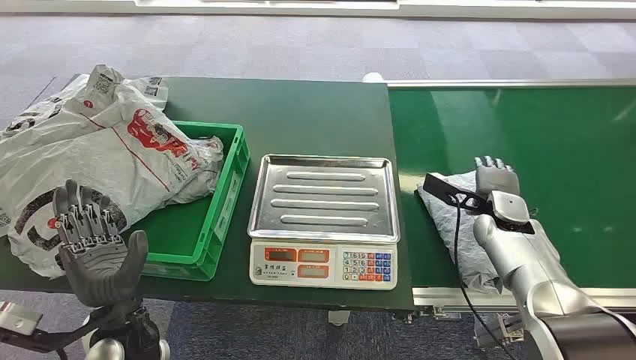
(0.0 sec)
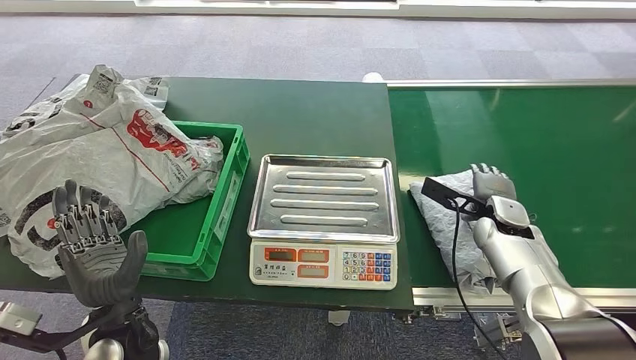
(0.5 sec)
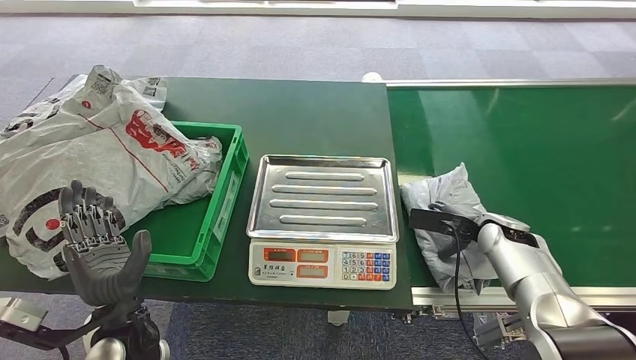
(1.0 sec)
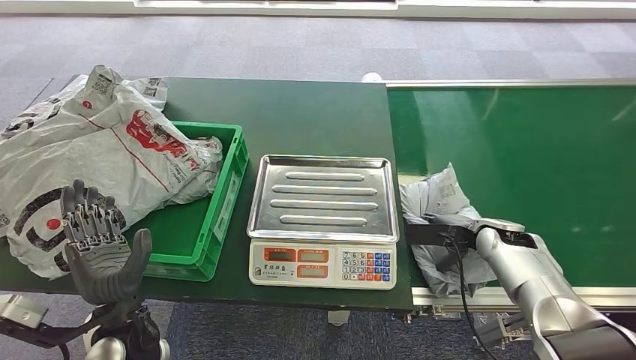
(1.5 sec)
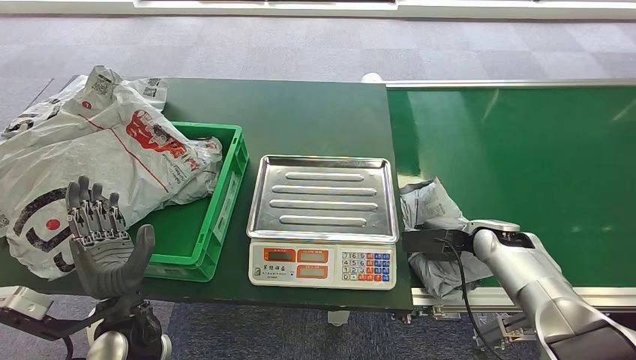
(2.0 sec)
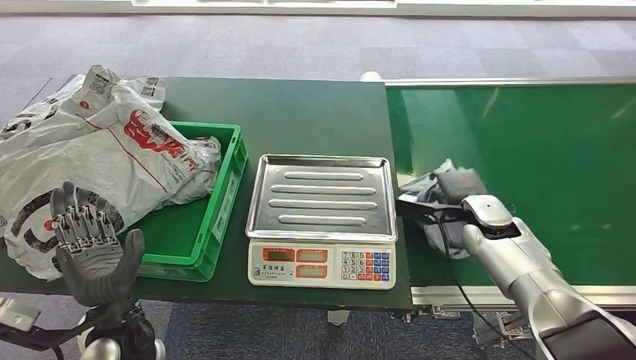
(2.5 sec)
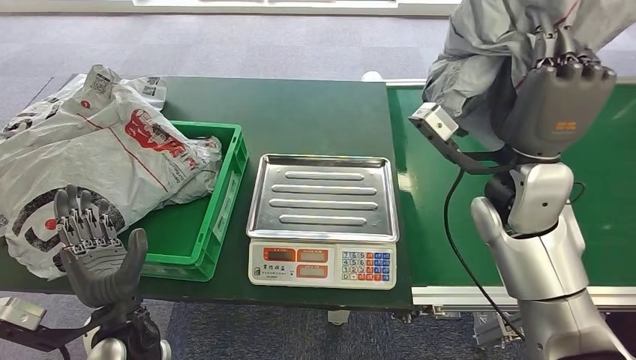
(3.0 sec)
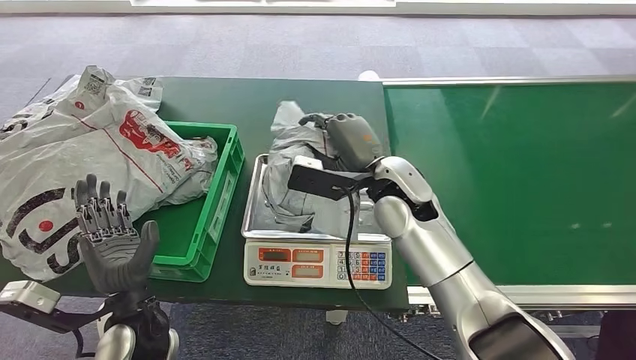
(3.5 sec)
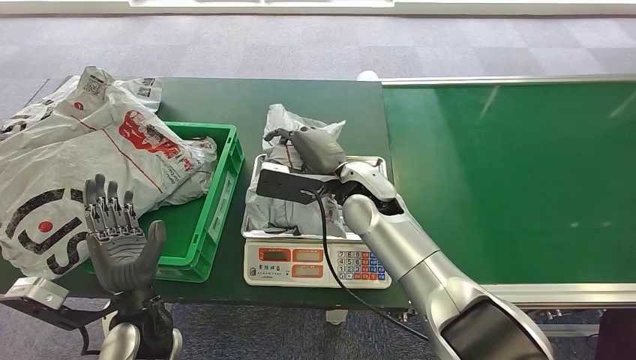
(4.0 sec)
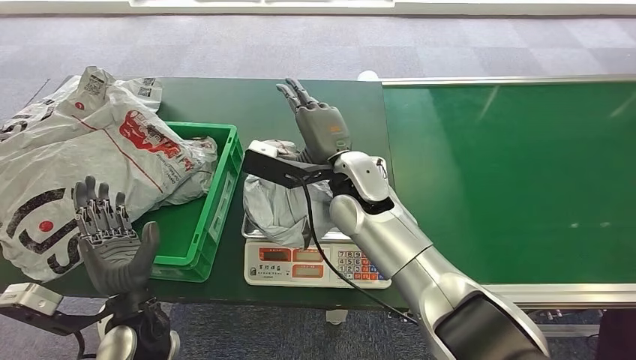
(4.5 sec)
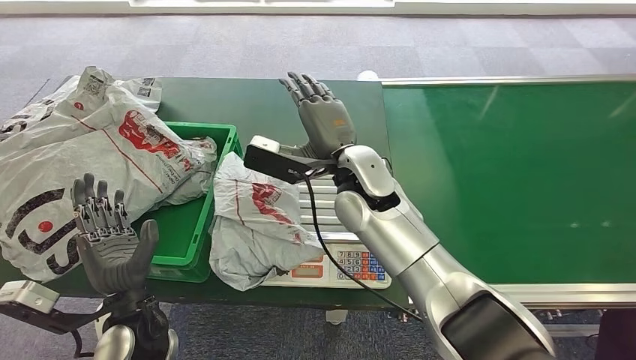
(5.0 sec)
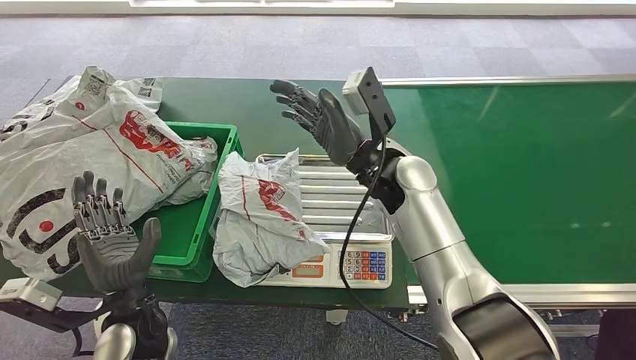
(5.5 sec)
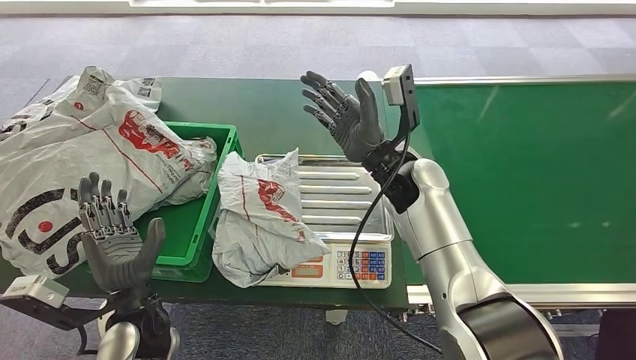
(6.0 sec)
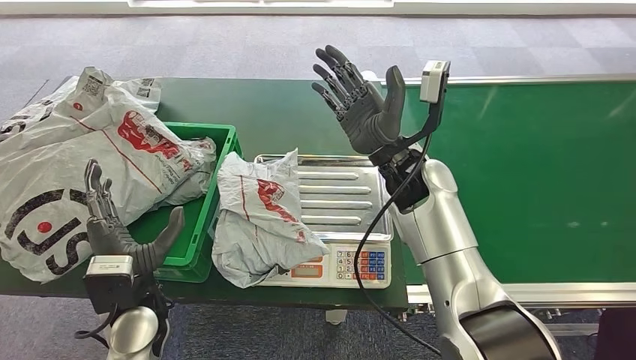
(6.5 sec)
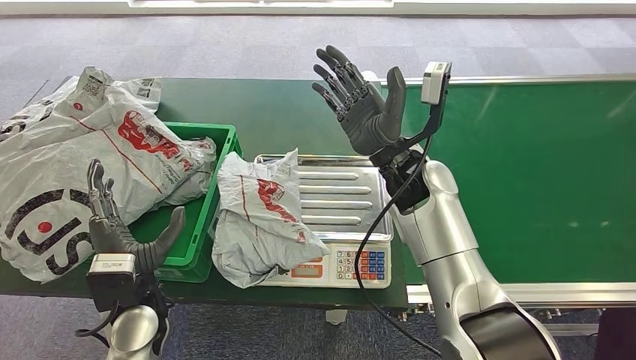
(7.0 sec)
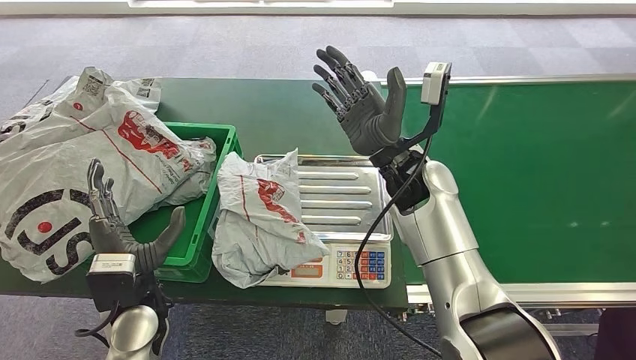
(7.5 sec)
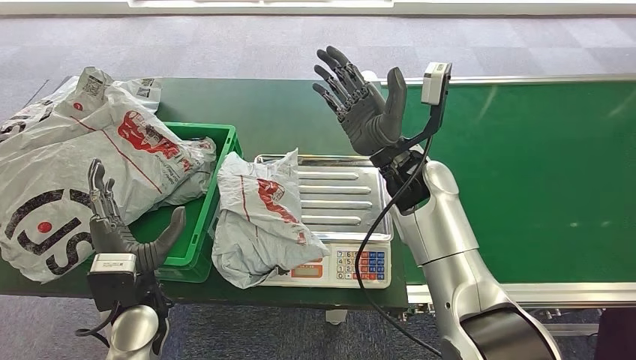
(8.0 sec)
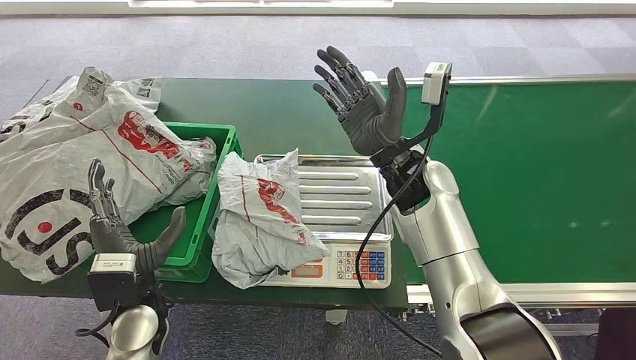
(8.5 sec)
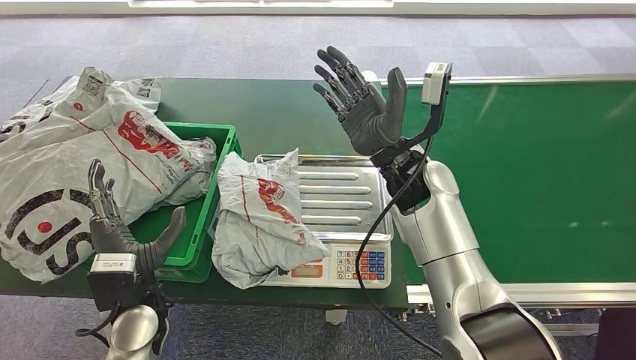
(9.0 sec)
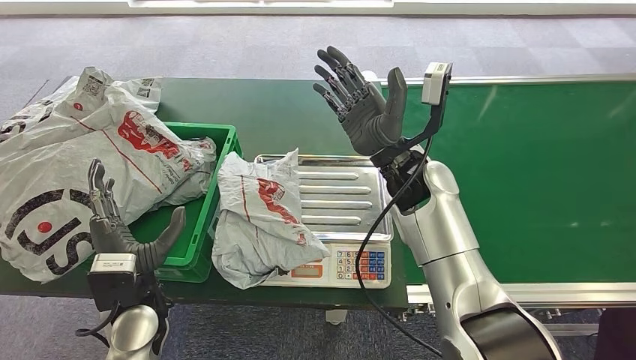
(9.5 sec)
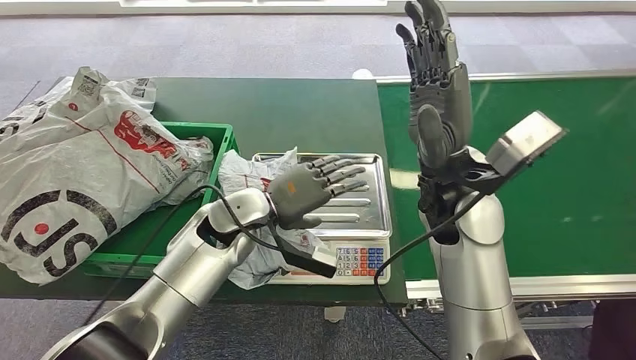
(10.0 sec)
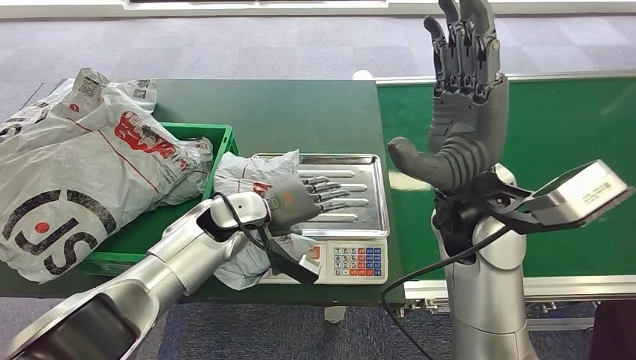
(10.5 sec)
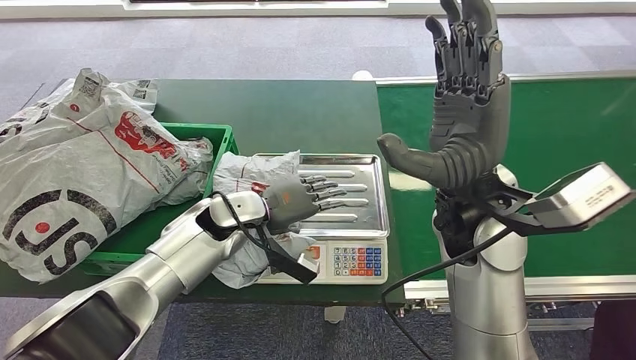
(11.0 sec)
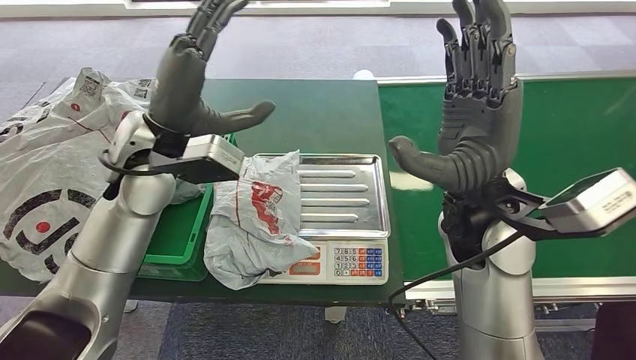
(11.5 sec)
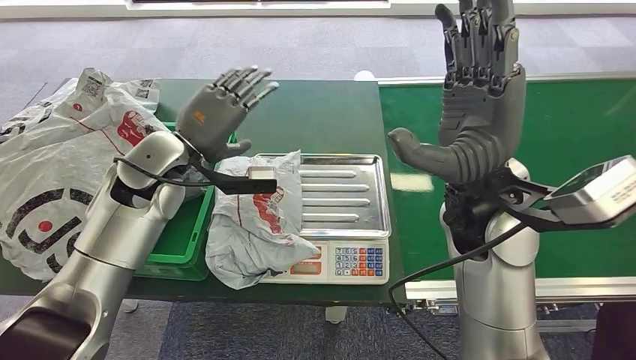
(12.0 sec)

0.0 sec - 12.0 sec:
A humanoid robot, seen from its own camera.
Step, 0.0 sec - 3.0 sec: Pick up the package from the conveyor belt.
Step, 3.5 sec - 5.5 sec: Place the package onto the inbound machine.

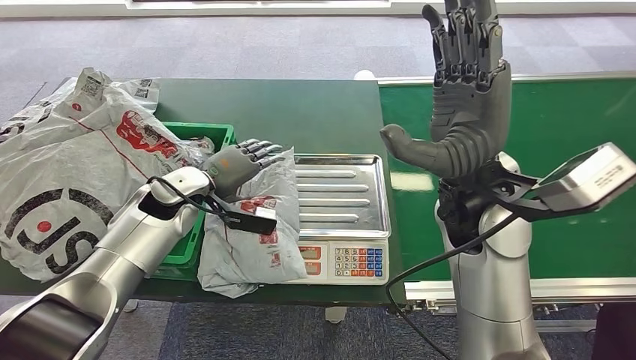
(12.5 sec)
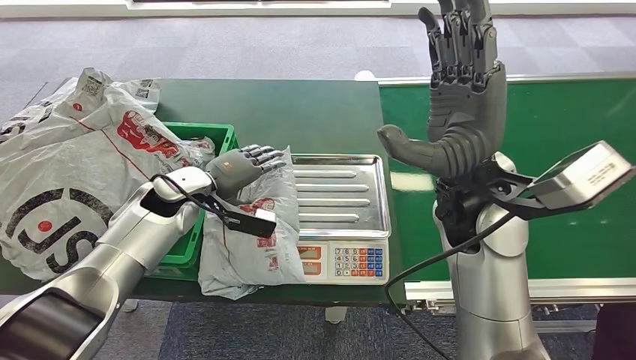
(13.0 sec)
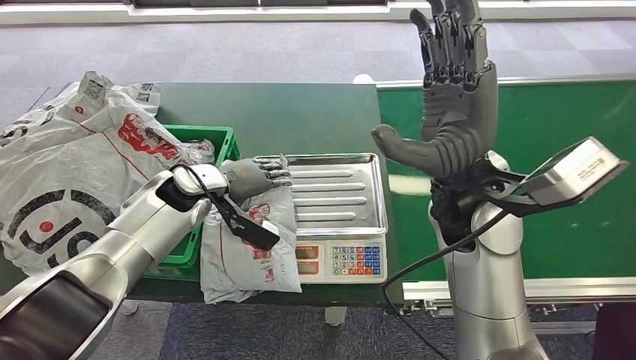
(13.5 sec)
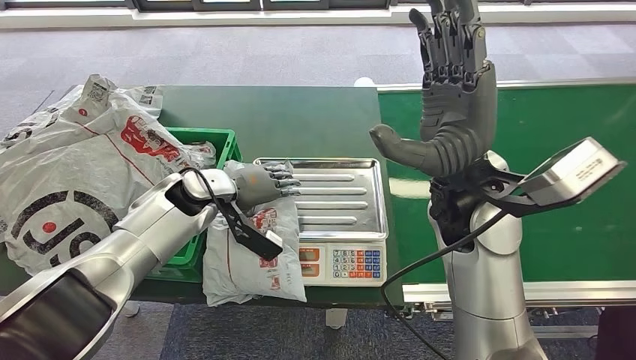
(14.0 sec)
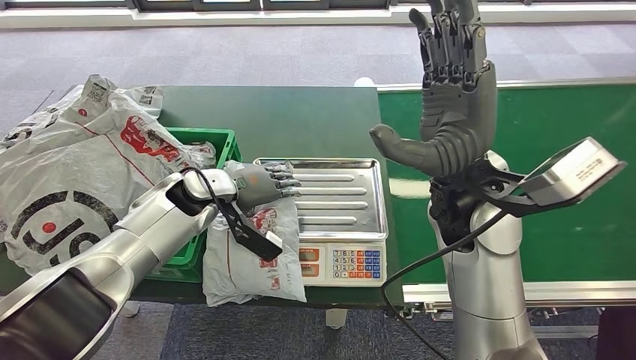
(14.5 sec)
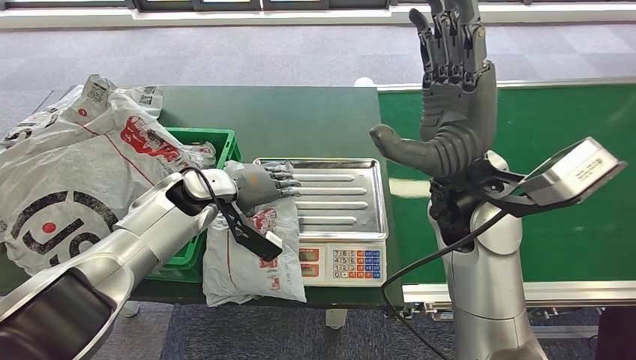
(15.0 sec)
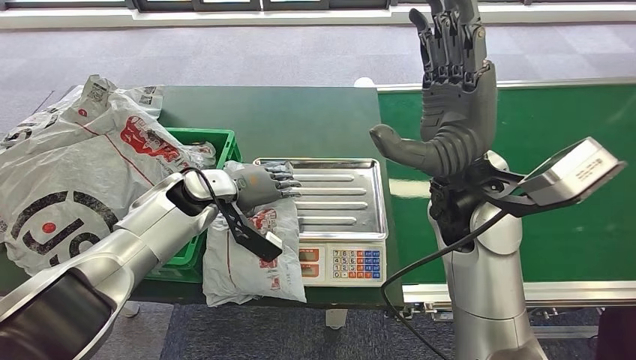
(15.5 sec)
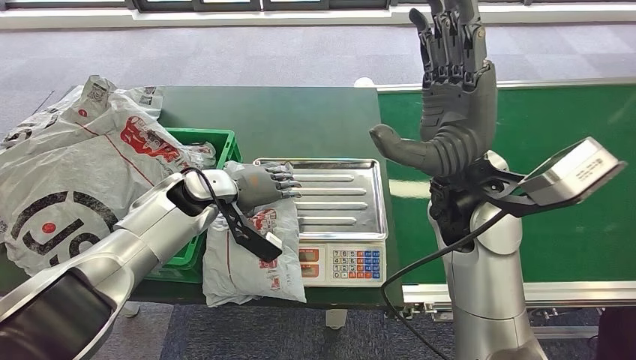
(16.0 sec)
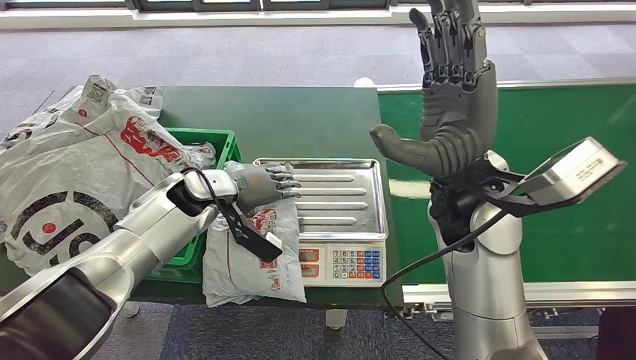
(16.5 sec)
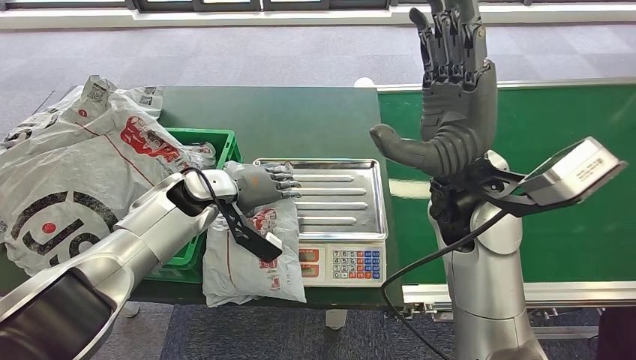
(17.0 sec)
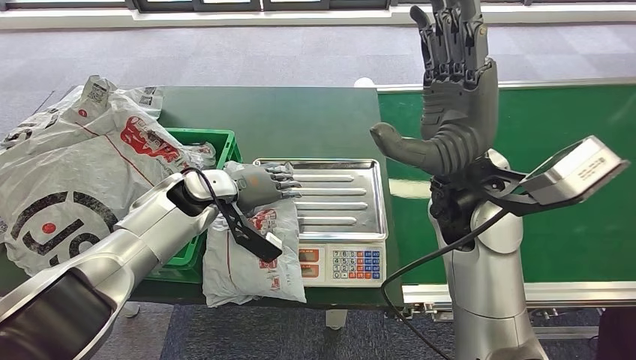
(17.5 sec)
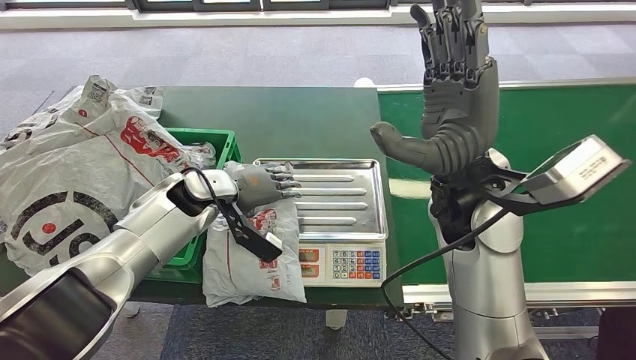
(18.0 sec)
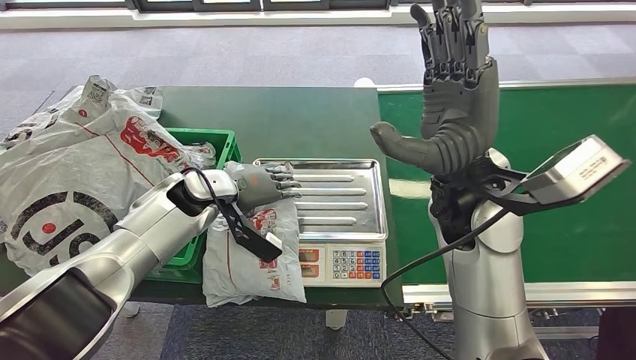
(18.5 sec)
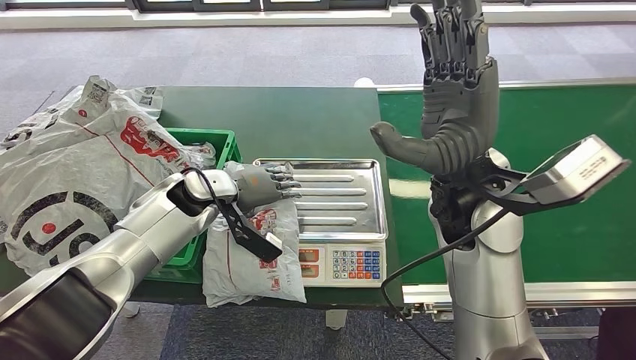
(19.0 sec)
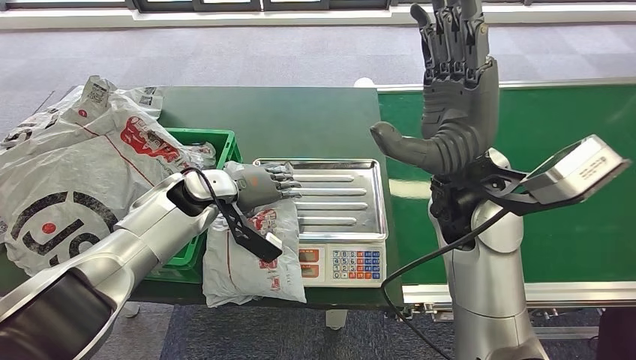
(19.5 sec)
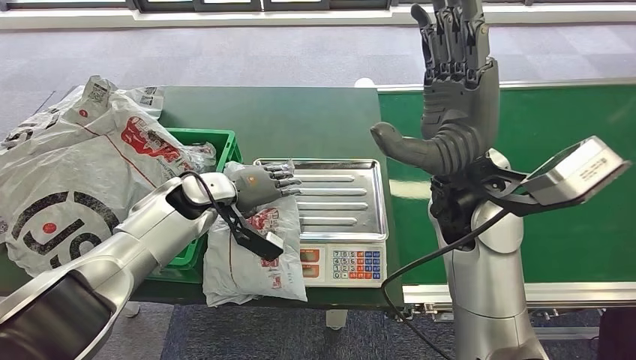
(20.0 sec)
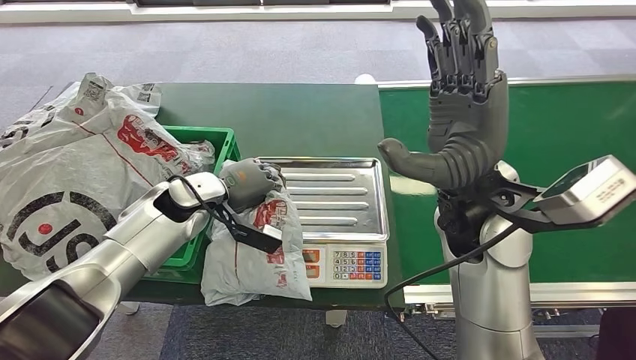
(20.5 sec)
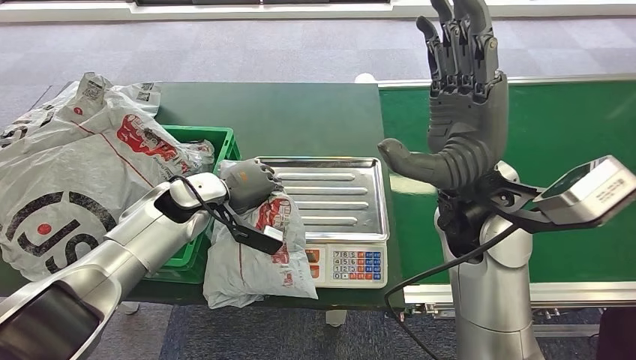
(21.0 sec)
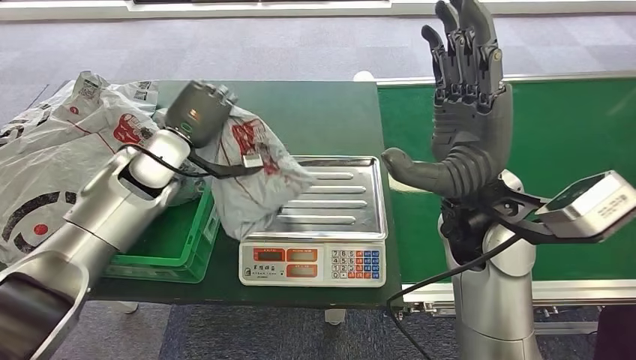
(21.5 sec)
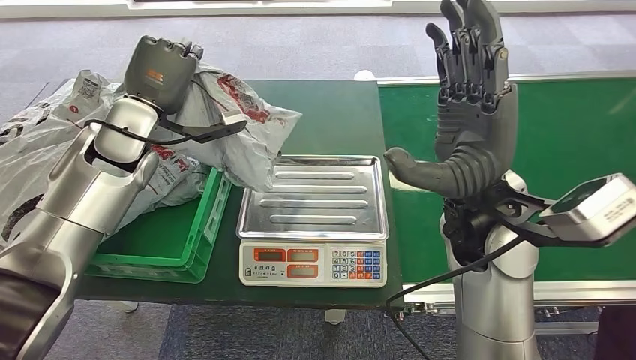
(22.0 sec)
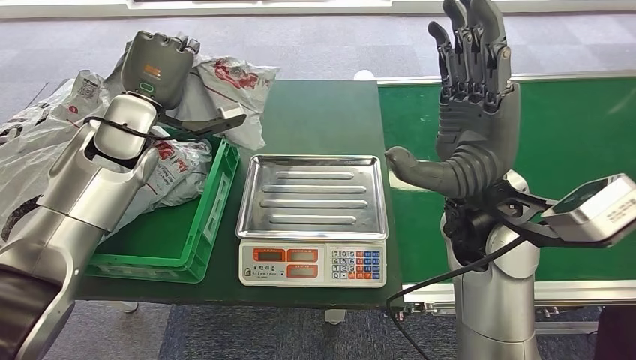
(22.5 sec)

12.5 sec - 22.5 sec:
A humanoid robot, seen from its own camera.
14.5 sec - 18.5 sec: Both hands stay put.
